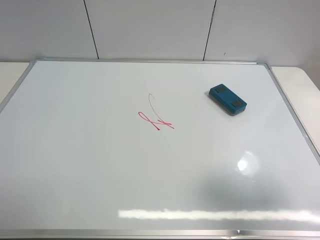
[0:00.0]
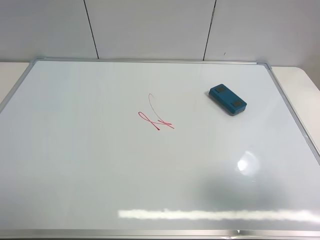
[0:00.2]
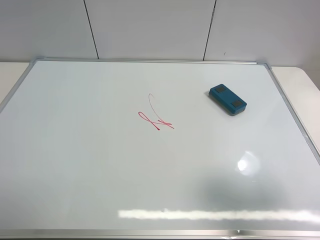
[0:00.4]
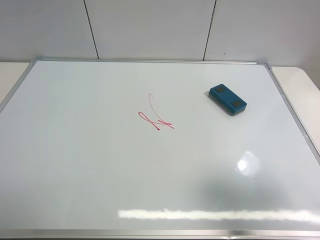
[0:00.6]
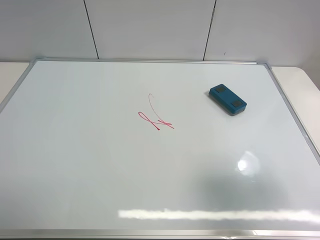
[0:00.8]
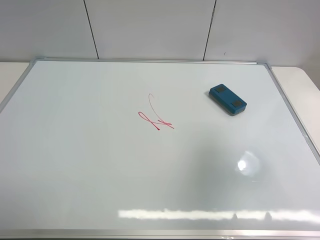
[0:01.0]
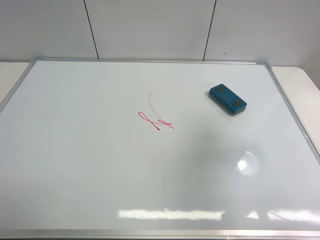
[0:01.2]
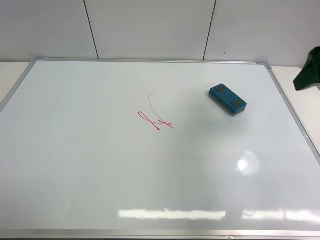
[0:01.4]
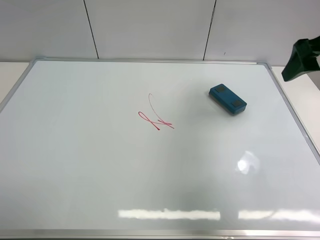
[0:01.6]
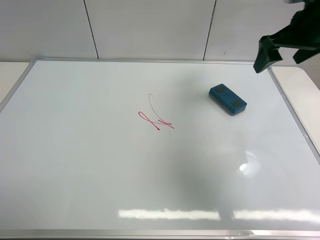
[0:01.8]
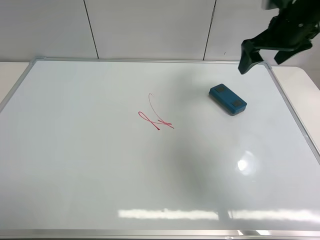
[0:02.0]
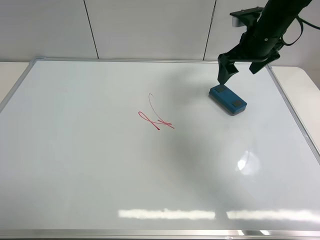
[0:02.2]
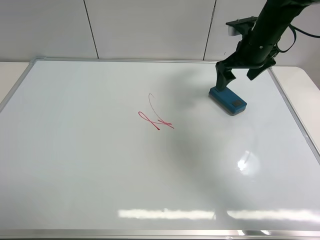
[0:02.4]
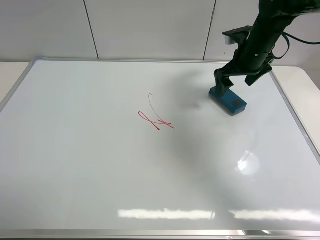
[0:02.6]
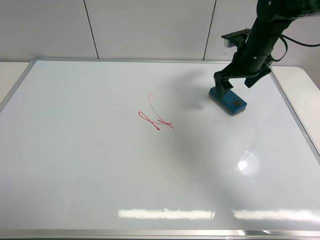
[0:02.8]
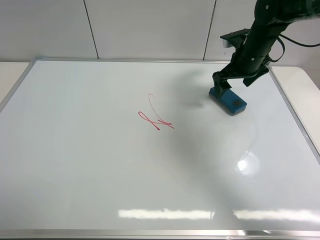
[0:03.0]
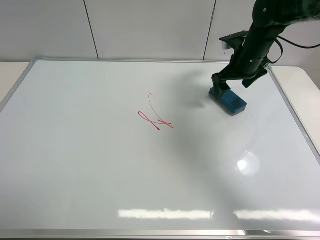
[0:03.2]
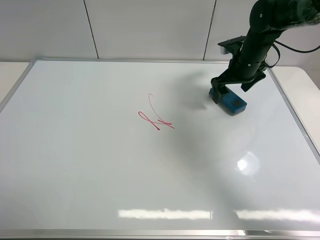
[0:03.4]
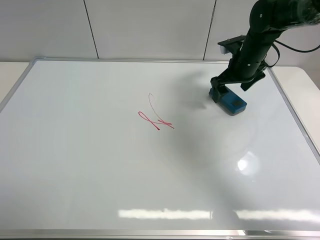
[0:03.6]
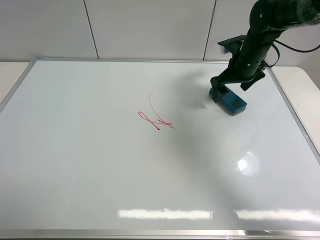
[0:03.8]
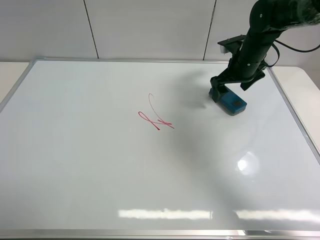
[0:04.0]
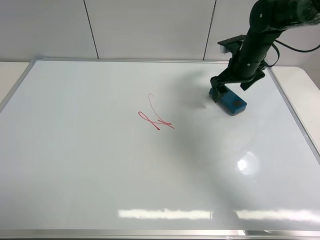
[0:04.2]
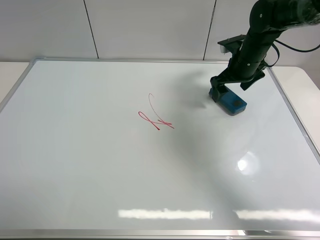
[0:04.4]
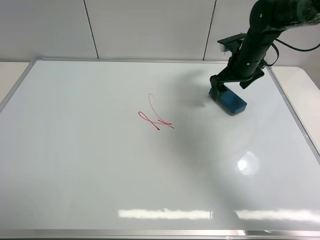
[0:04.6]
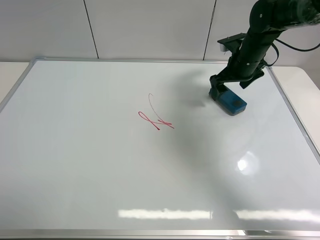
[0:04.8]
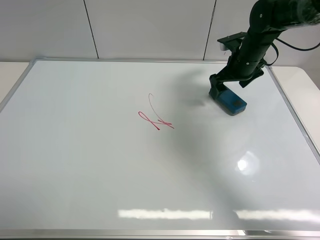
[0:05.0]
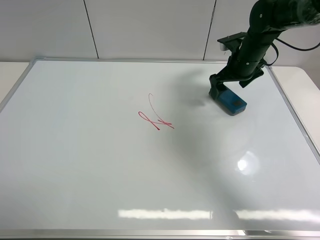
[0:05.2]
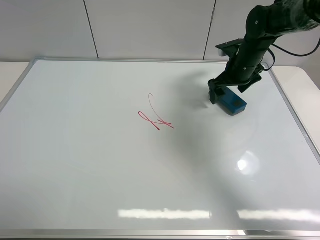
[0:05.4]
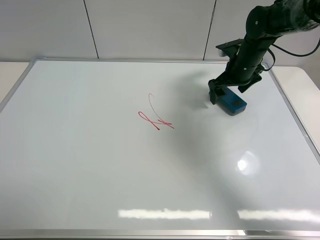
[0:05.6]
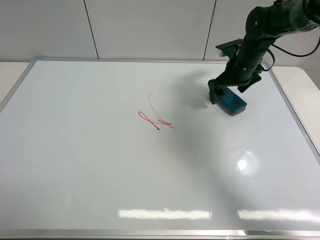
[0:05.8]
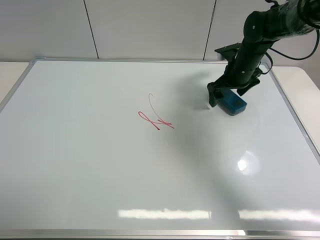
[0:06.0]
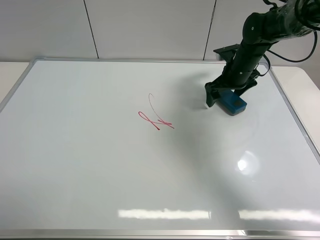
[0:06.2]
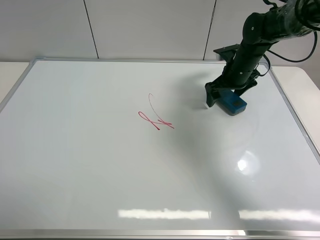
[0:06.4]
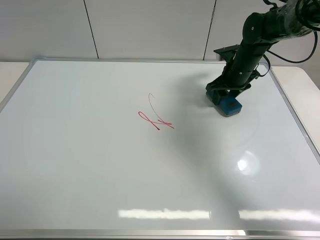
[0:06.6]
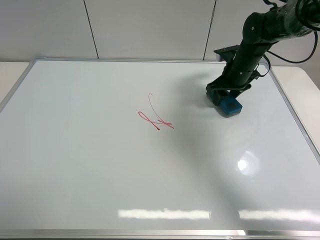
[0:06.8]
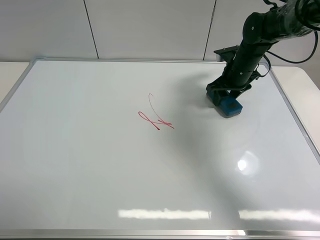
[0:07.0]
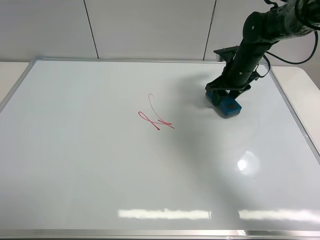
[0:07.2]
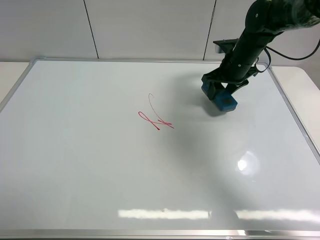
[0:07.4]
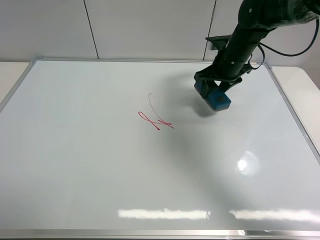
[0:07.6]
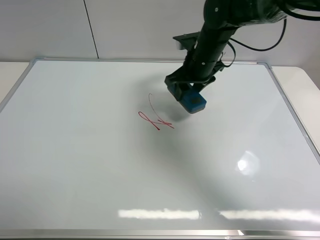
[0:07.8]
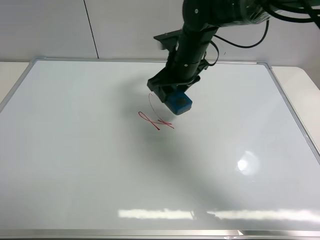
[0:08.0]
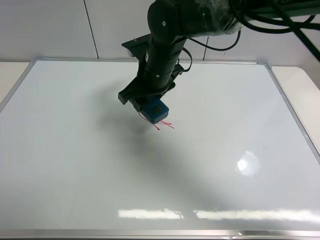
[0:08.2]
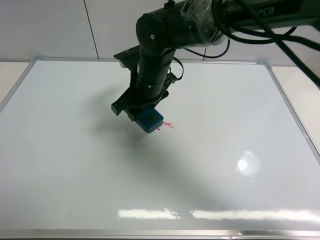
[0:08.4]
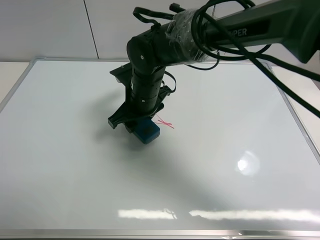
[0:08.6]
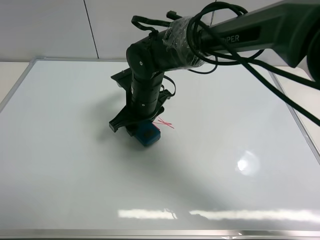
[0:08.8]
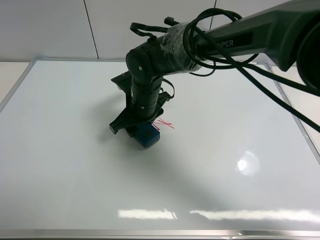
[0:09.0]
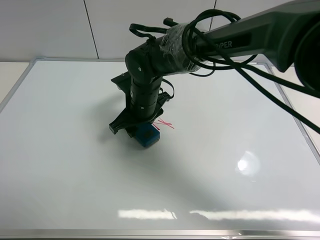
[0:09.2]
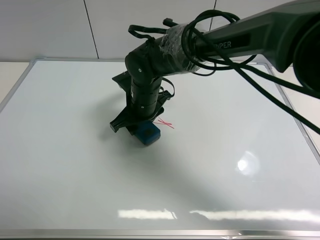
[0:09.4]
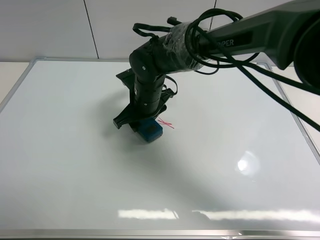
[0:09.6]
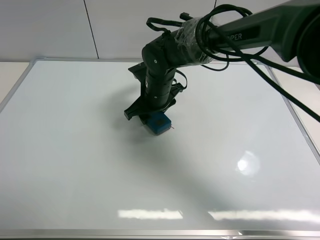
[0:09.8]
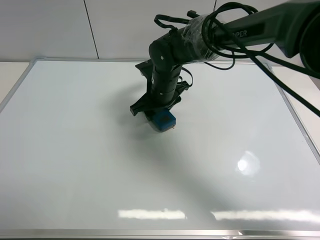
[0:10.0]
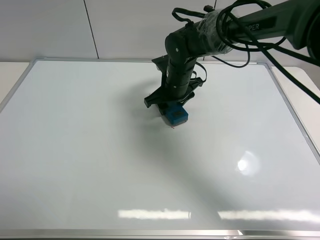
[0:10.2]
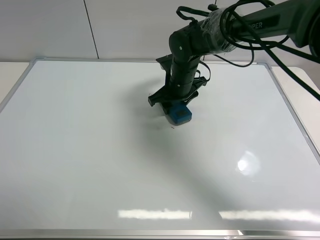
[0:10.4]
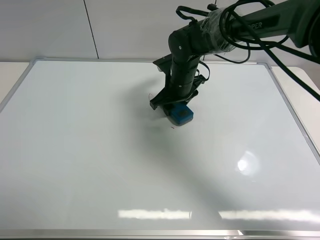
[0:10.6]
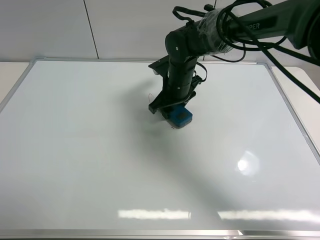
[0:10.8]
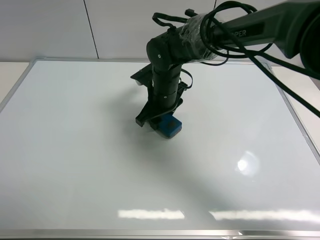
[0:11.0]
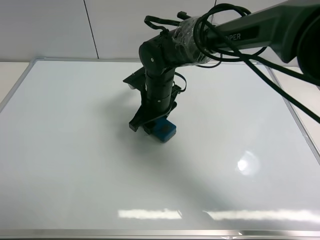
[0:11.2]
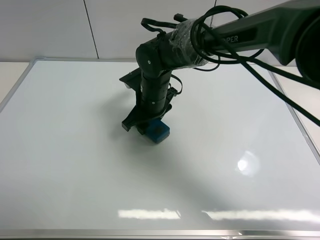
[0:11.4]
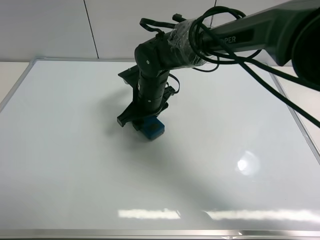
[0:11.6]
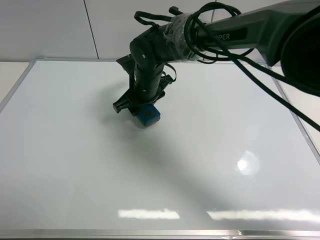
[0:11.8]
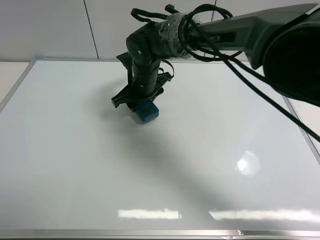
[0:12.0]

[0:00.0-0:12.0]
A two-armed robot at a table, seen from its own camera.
Task of the whole recording: use the right gripper to pick up the board eraser, wipe the notes on the whiteboard clean, and then put them back in place.
Step, 0:00.0 to 0:07.4: Pick up the board eraser with right gripper.
0:00.0 to 0:01.6: The right gripper is displaced forward by some 30 cm.
0:01.6 to 0:03.0: The right gripper shifts about 20 cm forward, downward and to the left.
0:03.0 to 0:06.0: There are only small adjustments of the grippers.
0:06.0 to 0:07.6: The right gripper goes some 5 cm to the left, and closes its fingers.
0:07.6 to 0:09.0: The right gripper heads to the left and backward, covering some 20 cm.
0:09.0 to 0:10.4: The right gripper heads to the right and forward, covering about 10 cm.
0:10.4 to 0:12.0: The right gripper shifts approximately 10 cm to the left.

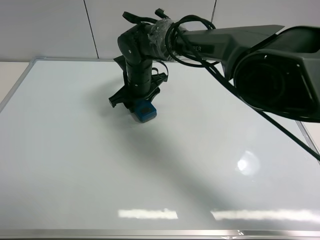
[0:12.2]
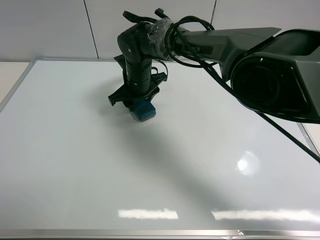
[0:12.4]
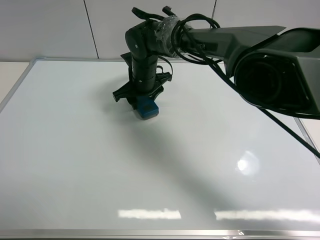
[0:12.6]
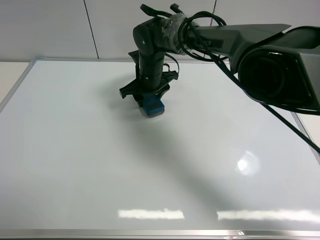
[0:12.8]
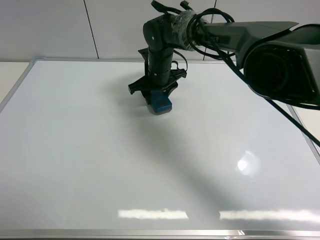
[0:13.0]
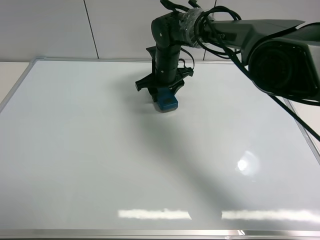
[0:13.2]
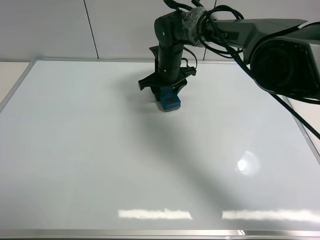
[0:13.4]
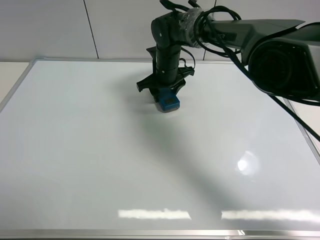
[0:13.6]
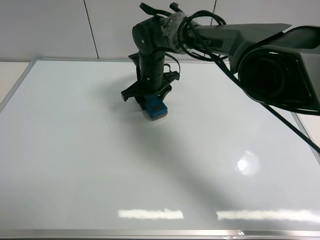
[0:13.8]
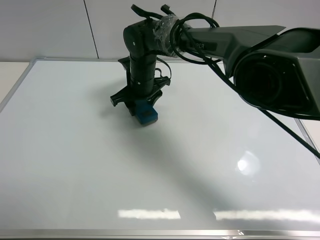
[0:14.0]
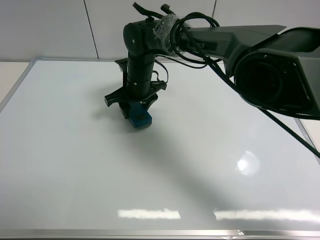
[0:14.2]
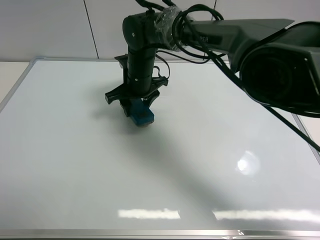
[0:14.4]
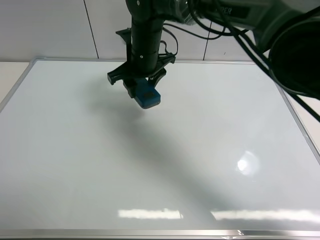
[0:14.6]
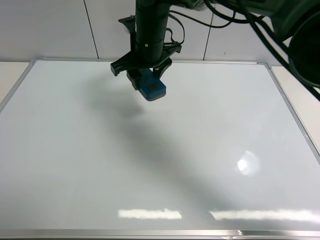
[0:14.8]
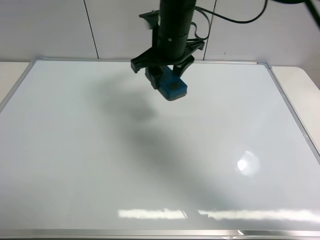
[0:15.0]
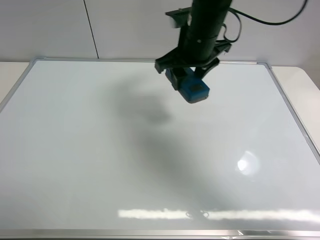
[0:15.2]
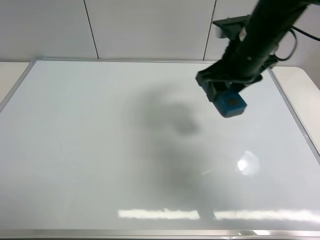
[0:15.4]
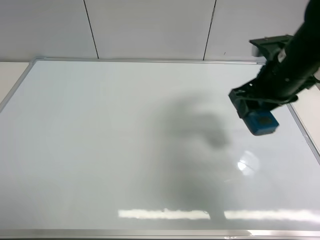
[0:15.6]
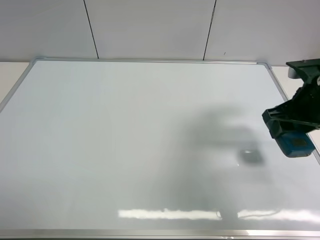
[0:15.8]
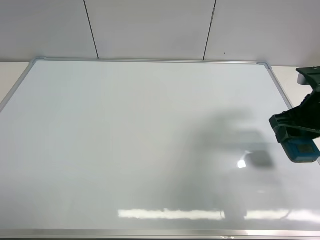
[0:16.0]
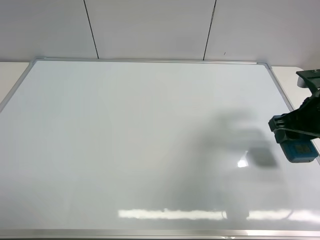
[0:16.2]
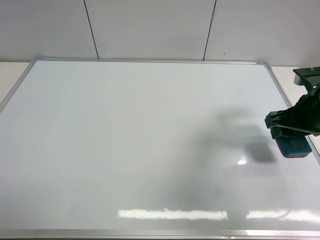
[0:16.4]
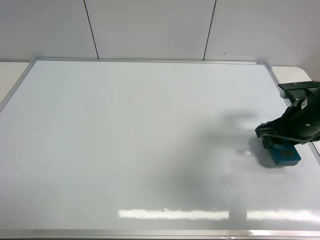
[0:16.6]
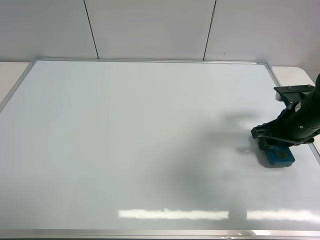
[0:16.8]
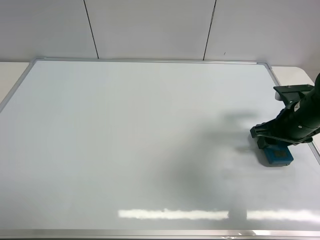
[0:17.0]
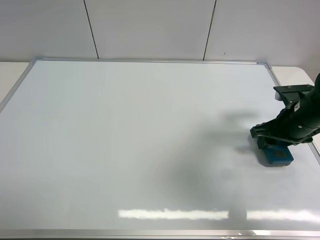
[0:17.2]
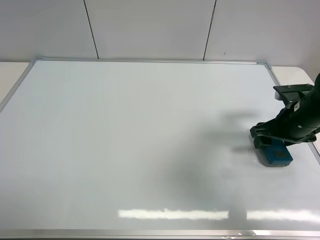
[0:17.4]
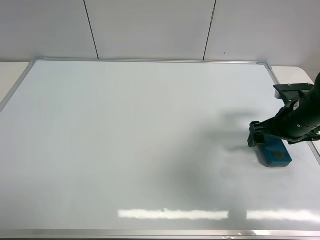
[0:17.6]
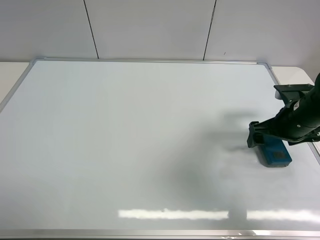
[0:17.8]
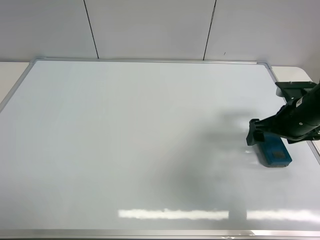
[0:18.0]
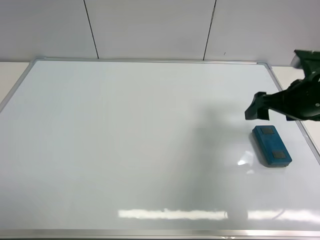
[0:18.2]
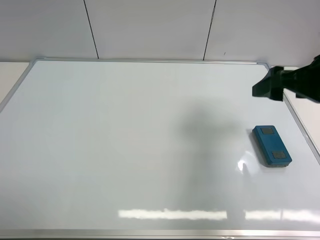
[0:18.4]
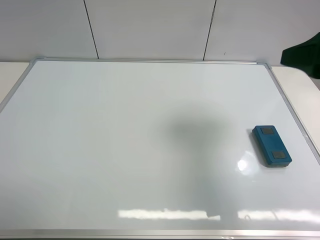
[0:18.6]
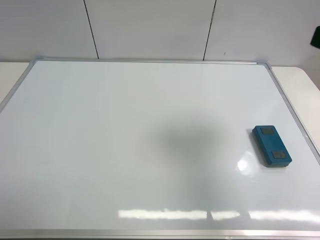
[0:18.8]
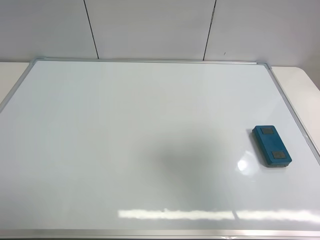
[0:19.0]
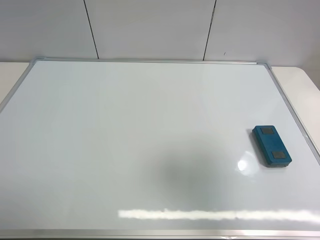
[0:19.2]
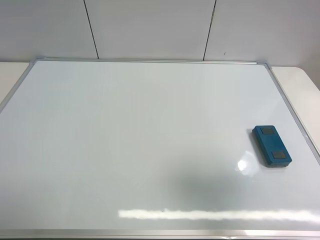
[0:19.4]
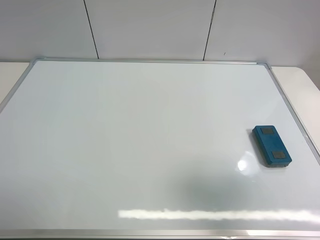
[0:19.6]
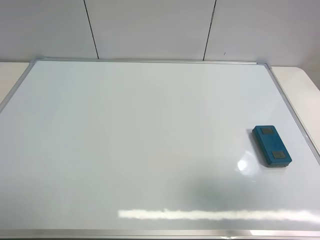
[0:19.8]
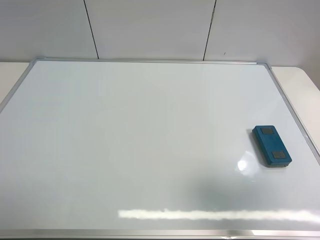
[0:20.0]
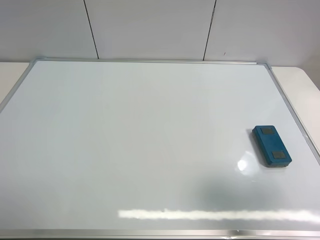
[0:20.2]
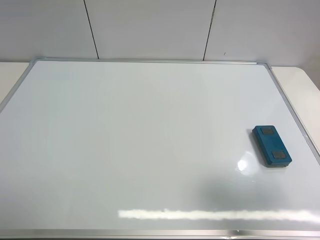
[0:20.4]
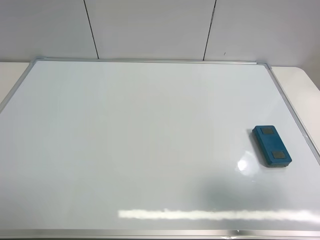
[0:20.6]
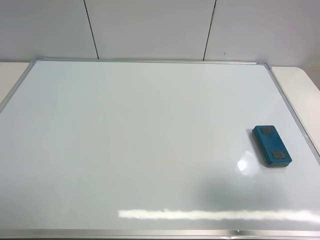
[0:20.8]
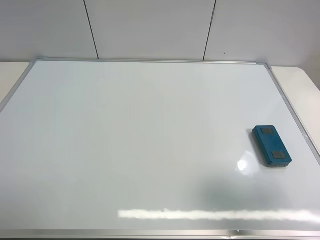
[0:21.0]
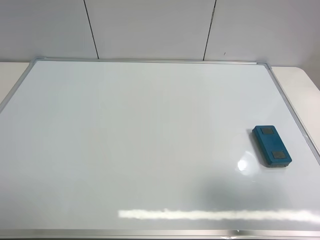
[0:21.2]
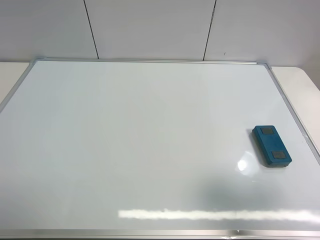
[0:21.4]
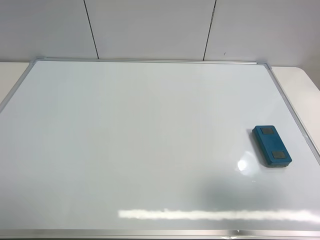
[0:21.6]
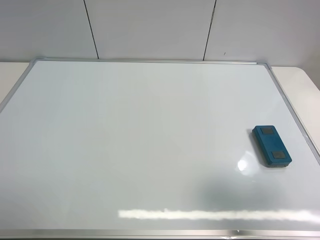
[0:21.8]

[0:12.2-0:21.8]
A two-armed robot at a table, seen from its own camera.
Task of the whole recording: use the right gripper to pick up the board eraser, wipe the notes on the whiteboard clean, and then put them back in place.
Step, 0:14.2 to 0:18.0: Place the board eraser on the right side of board with right gripper.
0:13.8 to 0:15.4: The right gripper is displaced to the right, upward and backward by approximately 25 cm.
0:15.4 to 0:17.0: The right gripper is displaced to the right and downward by approximately 15 cm.
0:17.0 to 0:18.6: The right gripper shifts approximately 20 cm upward and backward, and opens up.
0:18.6 to 0:20.2: The right gripper shifts some 15 cm backward.
0:20.2 to 0:21.8: Neither gripper changes place.
